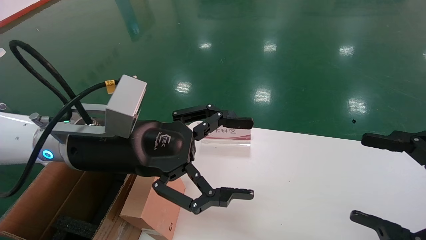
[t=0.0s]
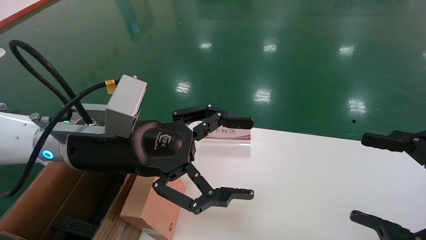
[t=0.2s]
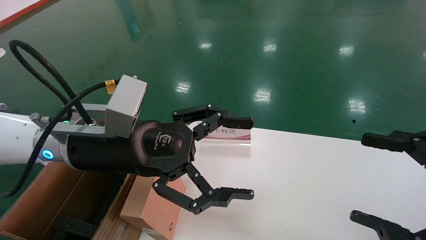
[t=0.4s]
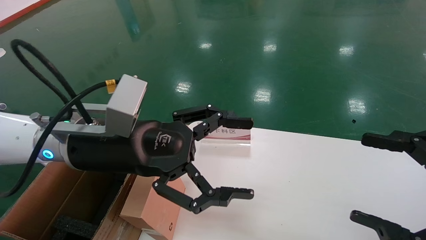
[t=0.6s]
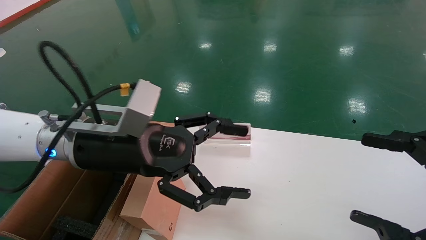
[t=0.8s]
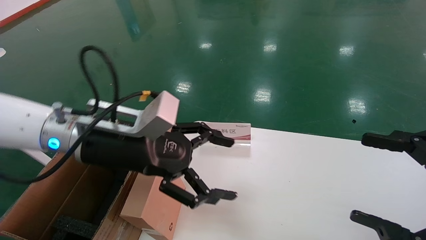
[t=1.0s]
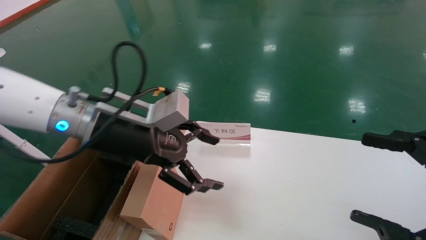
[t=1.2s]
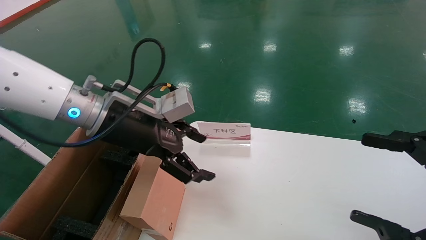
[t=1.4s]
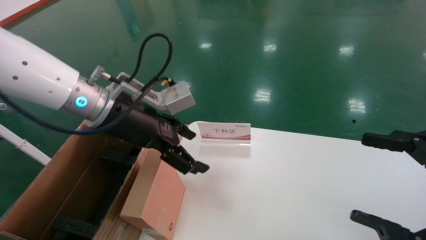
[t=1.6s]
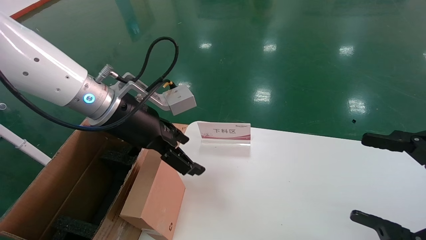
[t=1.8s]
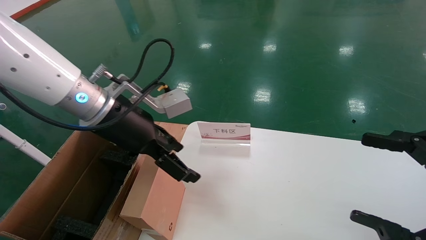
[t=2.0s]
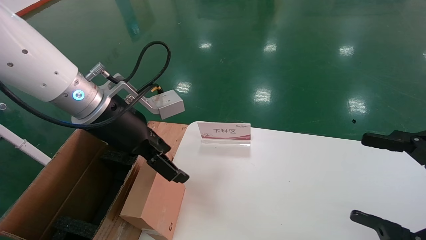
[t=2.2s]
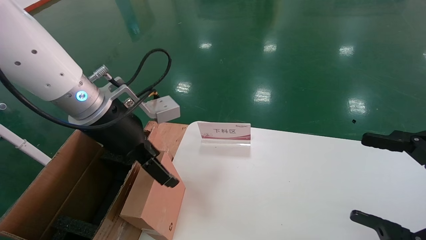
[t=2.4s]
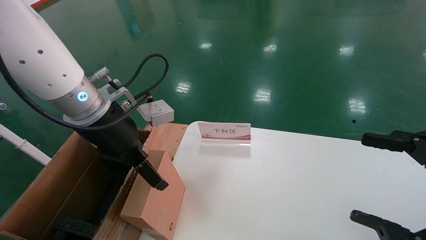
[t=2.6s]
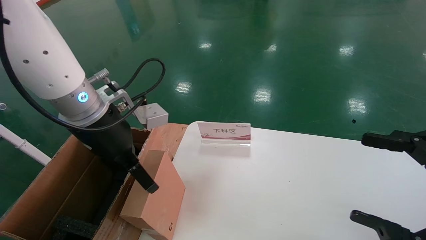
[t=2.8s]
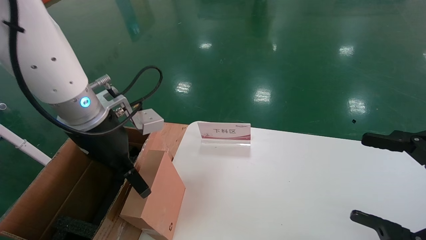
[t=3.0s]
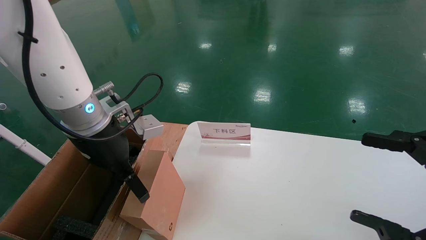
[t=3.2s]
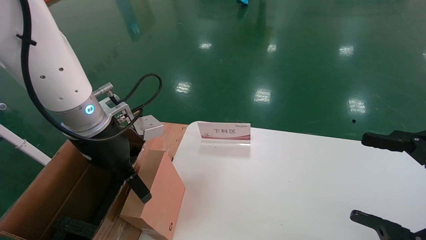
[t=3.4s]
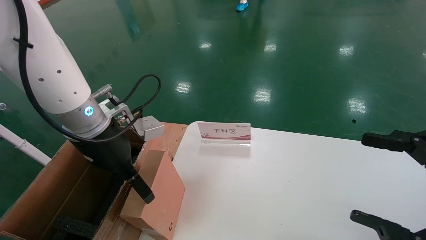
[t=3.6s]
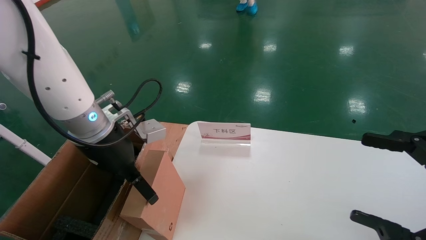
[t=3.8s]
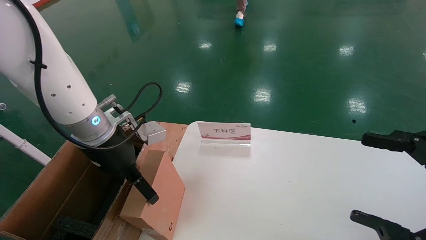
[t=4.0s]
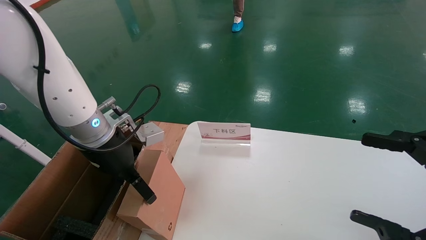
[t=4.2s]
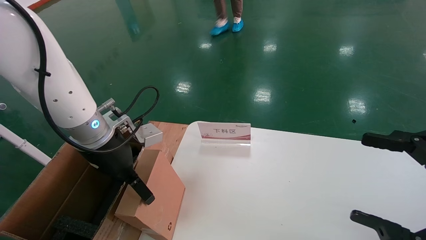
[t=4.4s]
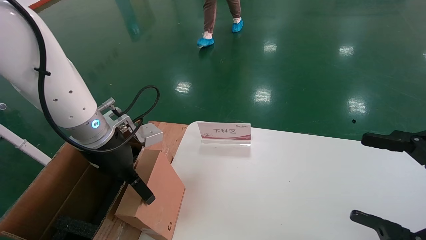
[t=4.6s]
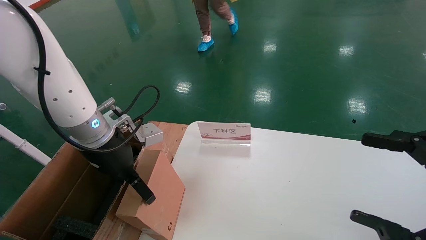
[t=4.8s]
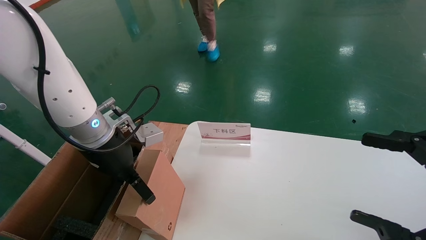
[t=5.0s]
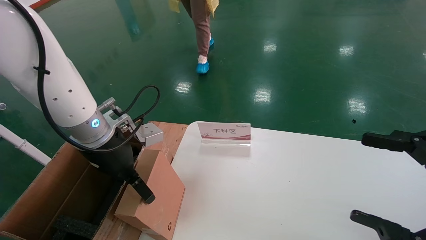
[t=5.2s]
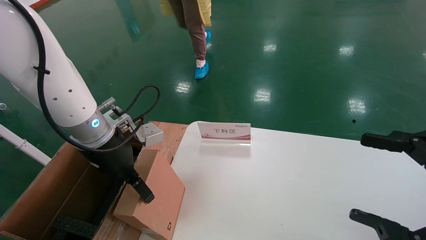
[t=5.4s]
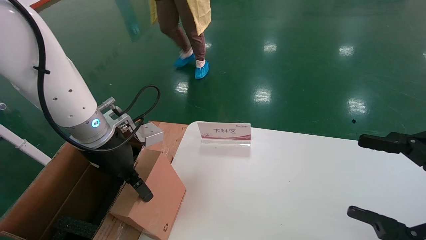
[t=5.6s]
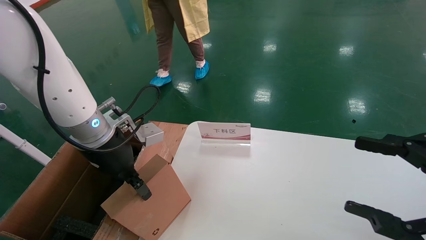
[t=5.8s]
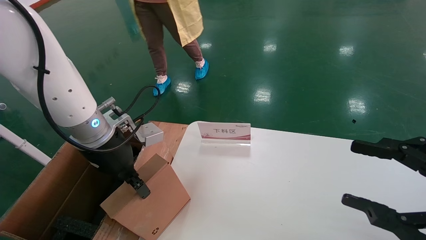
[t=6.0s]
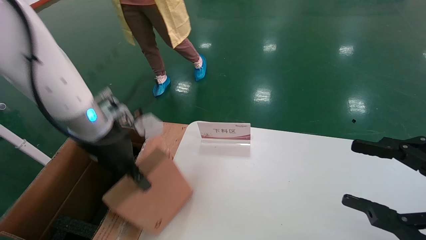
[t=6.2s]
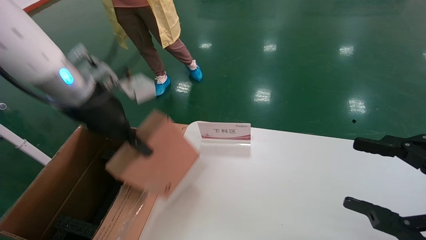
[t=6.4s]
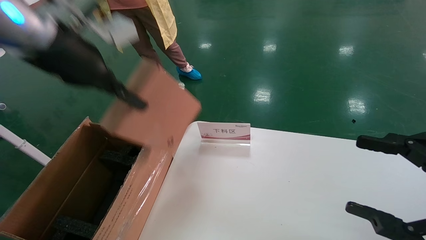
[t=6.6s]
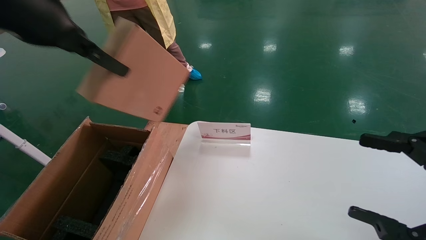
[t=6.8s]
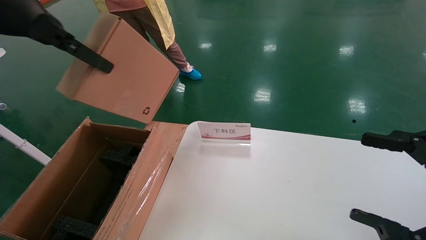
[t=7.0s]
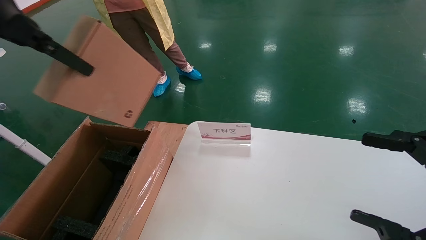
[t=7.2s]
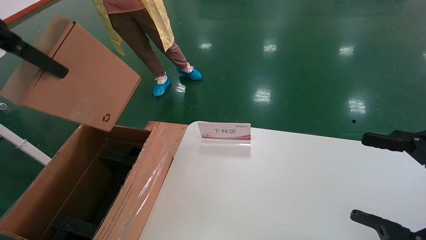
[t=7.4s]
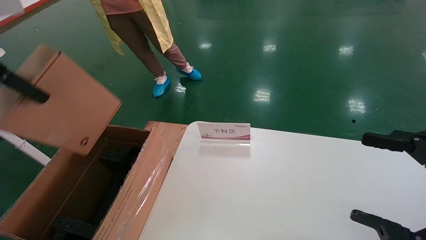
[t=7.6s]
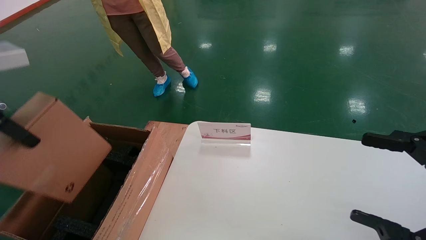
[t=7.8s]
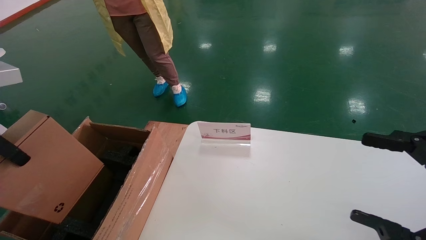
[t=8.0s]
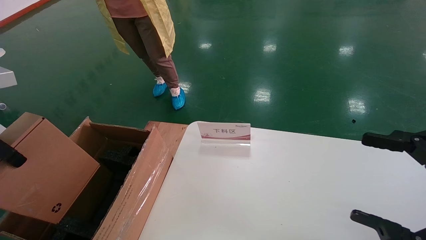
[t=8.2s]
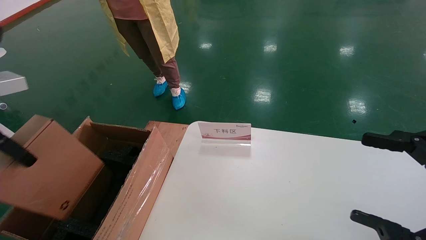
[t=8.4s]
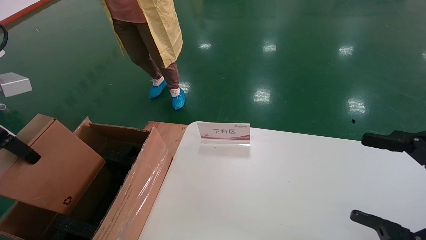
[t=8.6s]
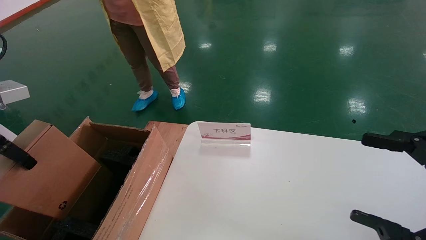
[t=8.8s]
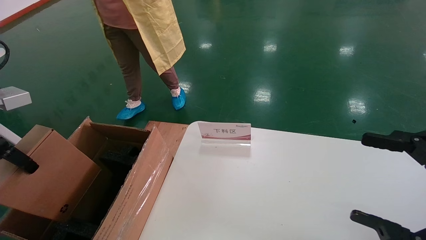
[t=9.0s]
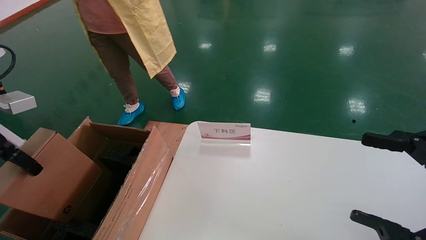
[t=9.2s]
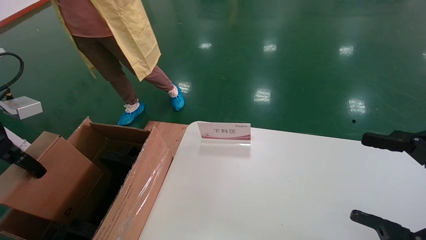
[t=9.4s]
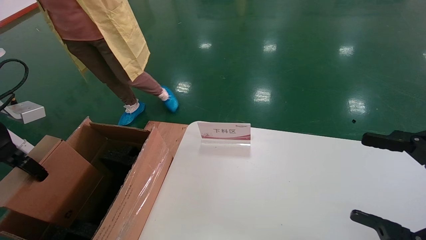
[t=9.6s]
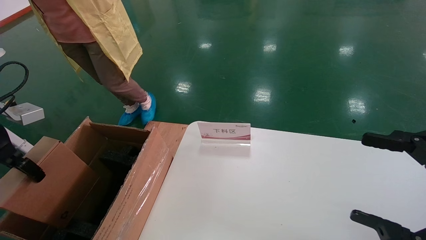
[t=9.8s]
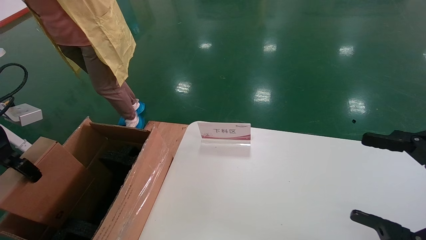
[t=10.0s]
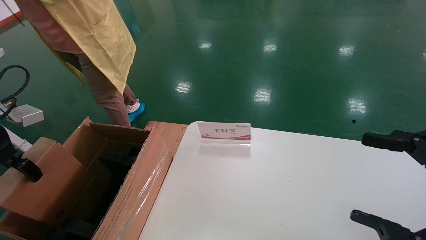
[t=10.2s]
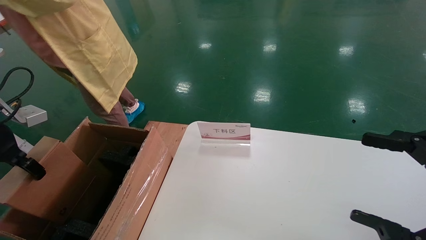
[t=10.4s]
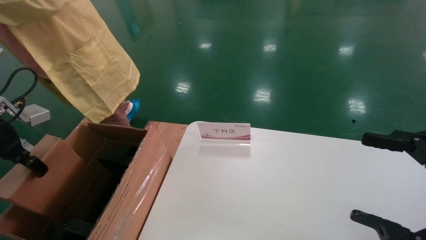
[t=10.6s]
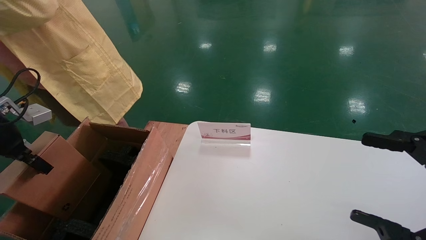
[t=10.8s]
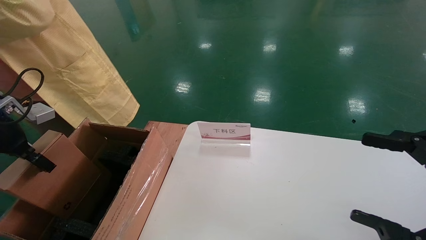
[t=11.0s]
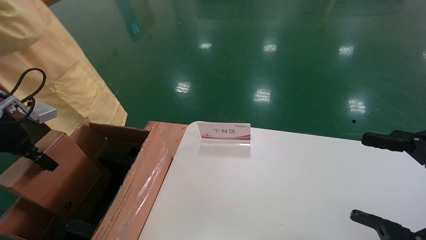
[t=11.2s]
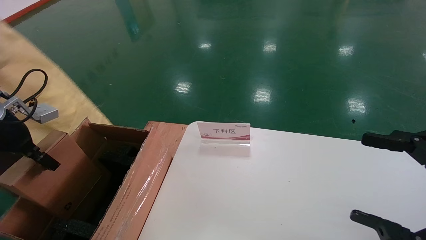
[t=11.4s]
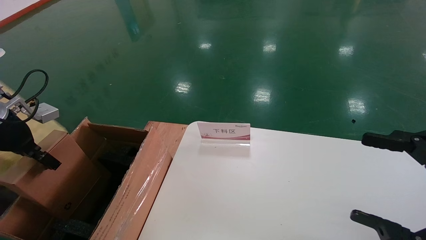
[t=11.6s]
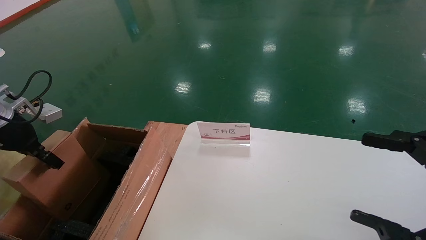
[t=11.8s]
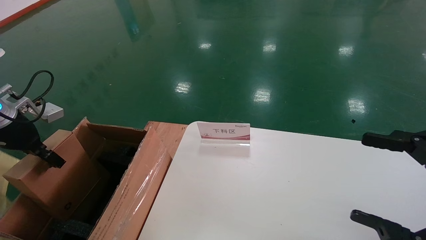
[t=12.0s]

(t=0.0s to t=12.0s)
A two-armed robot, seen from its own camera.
Task of the whole recording: pick up the small cardboard box and load it into the large cardboard box.
Step, t=1.6s - t=5.4s: Pick up the mouse and power cord box.
t=0.0s - t=1.6s: The left gripper travels forward by about 5 cm.
t=3.0s - t=4.4s: The left gripper moves approximately 5 cm.
t=4.4s - t=6.0s: The left gripper closes its fingers. The right gripper closes up.
t=6.0s - t=7.6s: The right gripper opens; the left gripper travels upward, backward and to the left by about 25 cm.
t=7.6s - t=9.0s: The left gripper heads downward and to the left, covering approximately 15 cm.
t=9.0s - t=10.4s: The left gripper heads downward, covering approximately 5 cm.
t=10.4s - t=12.0s: The left gripper travels forward by roughly 5 cm.

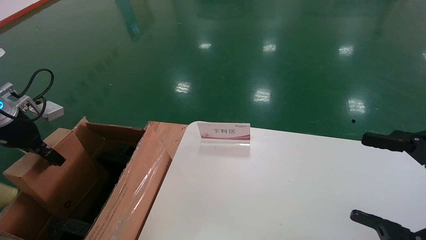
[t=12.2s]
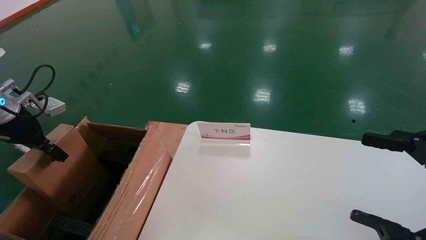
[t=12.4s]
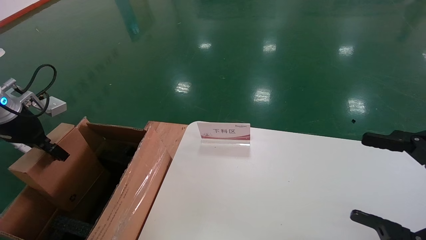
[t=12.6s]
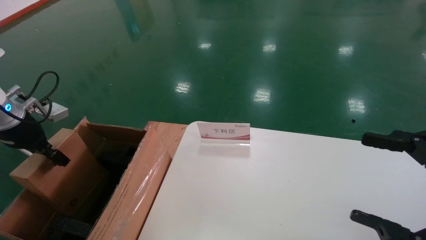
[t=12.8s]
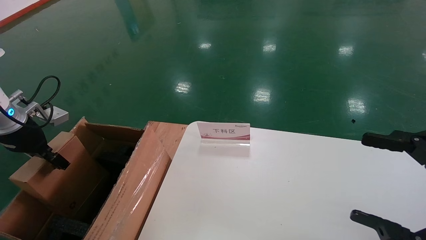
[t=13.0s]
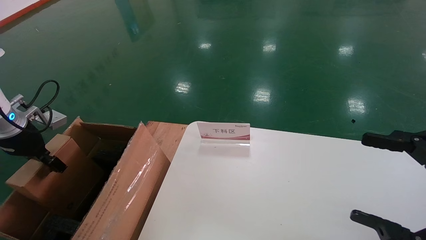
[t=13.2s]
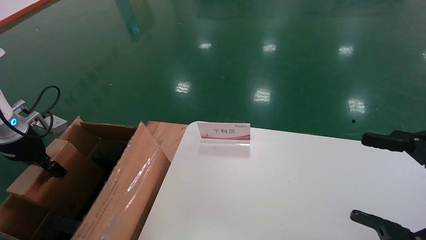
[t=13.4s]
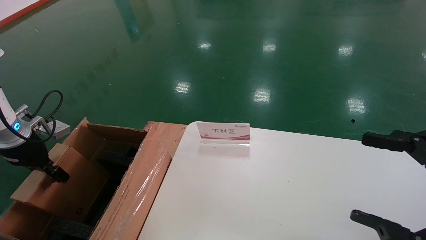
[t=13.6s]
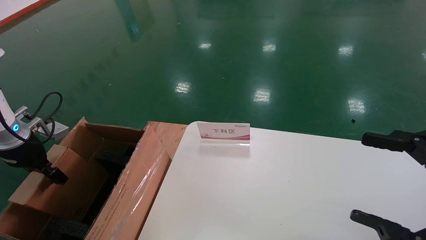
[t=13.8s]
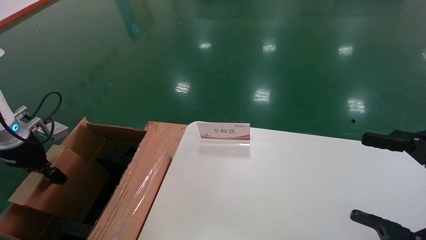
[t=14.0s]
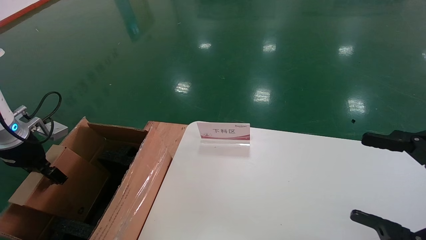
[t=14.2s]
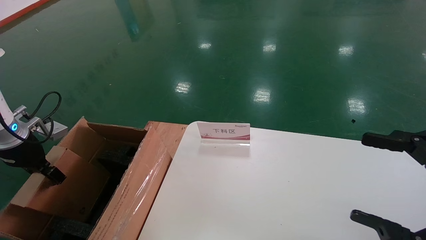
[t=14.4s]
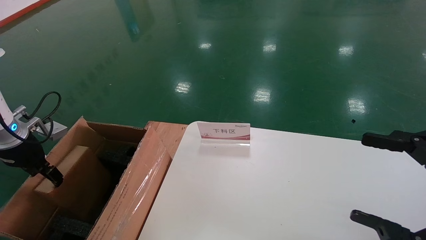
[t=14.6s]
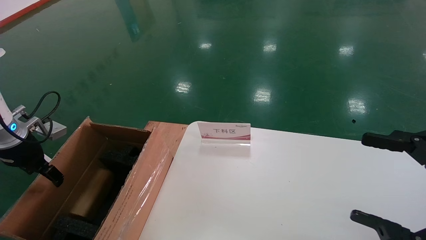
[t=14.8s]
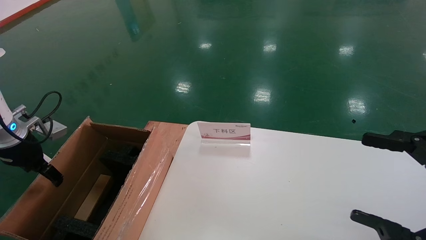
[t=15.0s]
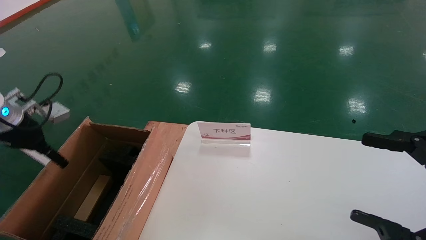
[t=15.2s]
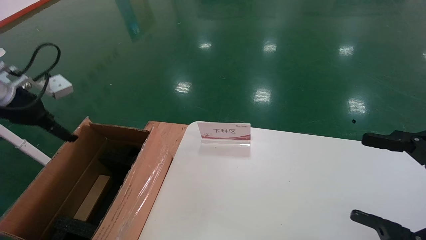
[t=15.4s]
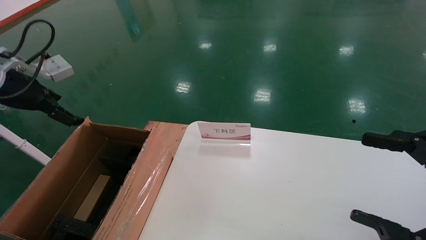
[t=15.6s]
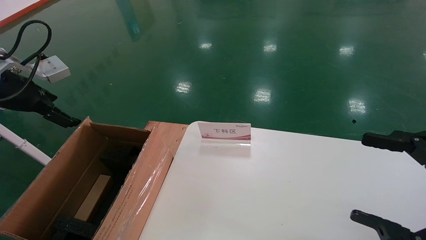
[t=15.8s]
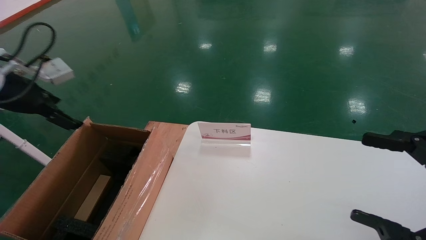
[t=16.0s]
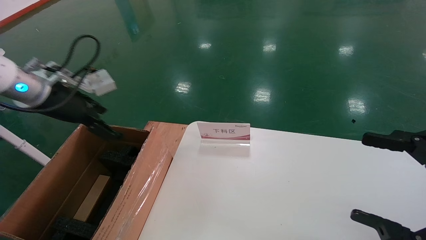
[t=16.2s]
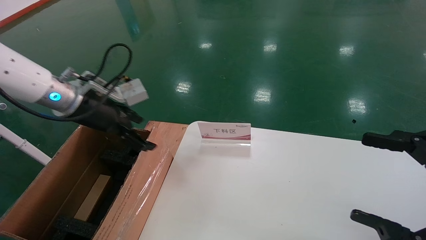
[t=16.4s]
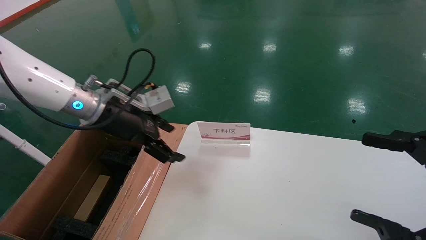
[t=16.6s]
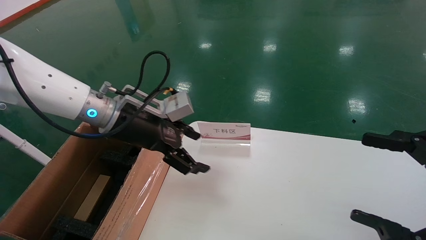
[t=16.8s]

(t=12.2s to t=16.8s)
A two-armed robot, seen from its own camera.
Task of the whole recording: pick up the small cardboard box and load it into the large cardboard box.
Step, t=12.2s - t=14.8s: Place the mouse and power cord box into the case.
t=12.2s - t=13.8s: The left gripper is displaced downward by approximately 5 cm.
t=13.8s - t=15.2s: The left gripper moves upward, roughly 5 cm, and opens.
t=15.2s - t=16.8s: The left gripper is displaced to the right by some 25 cm.
